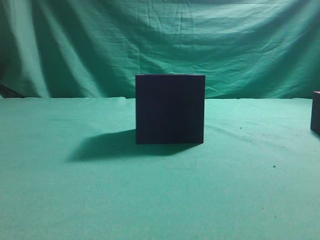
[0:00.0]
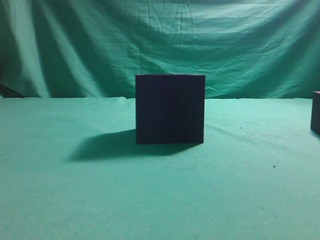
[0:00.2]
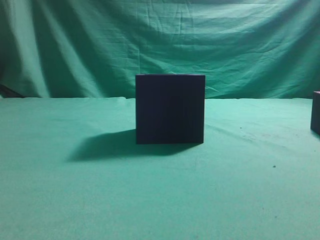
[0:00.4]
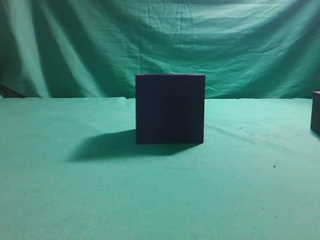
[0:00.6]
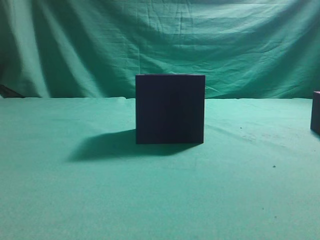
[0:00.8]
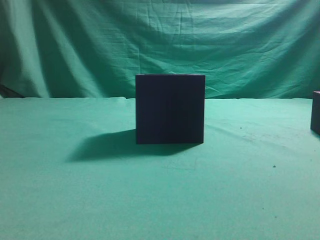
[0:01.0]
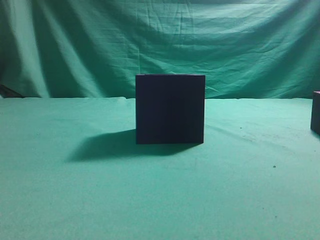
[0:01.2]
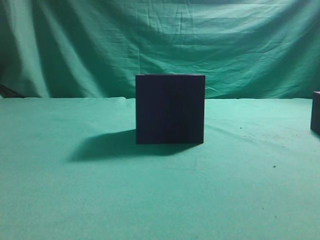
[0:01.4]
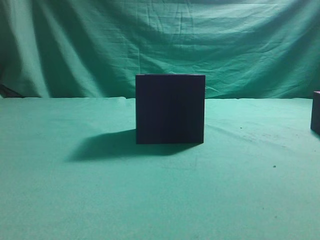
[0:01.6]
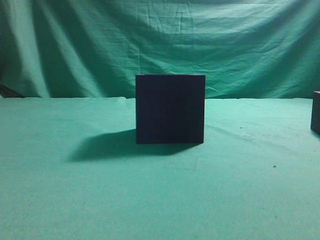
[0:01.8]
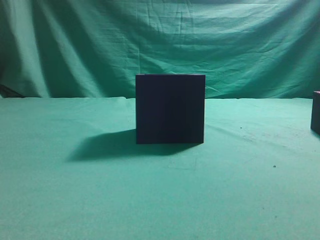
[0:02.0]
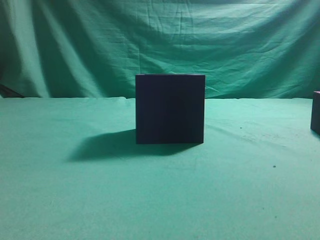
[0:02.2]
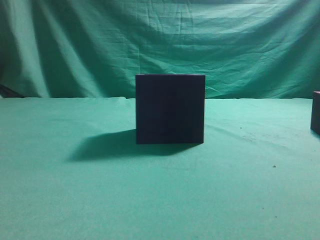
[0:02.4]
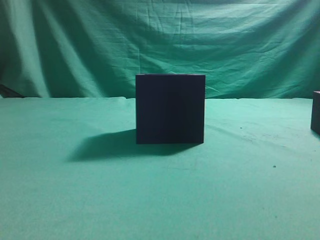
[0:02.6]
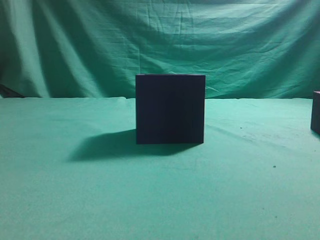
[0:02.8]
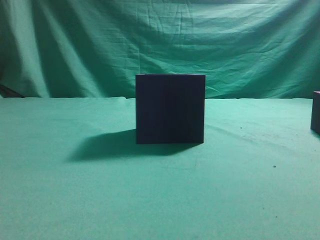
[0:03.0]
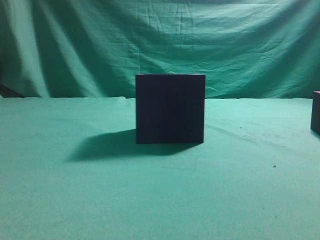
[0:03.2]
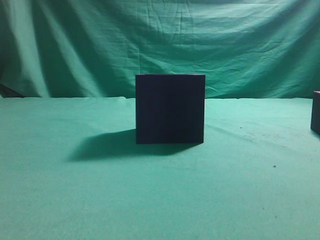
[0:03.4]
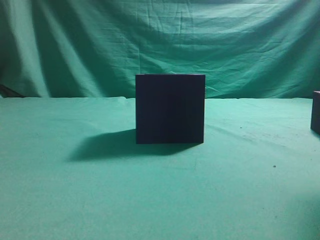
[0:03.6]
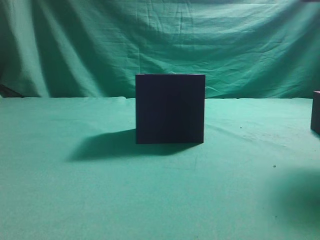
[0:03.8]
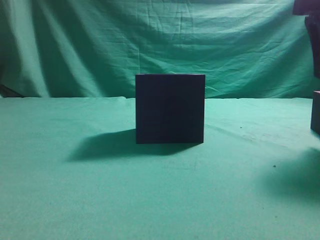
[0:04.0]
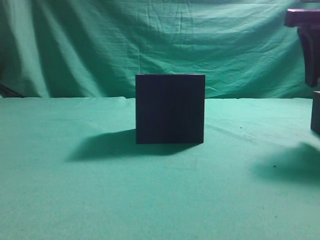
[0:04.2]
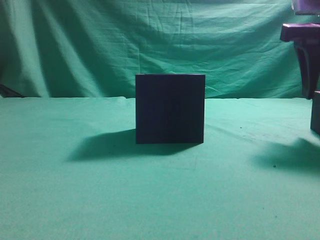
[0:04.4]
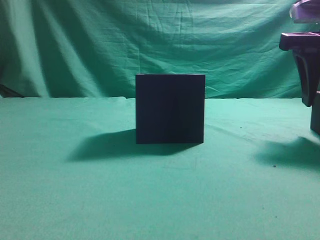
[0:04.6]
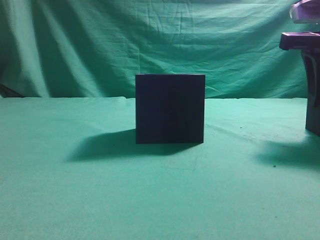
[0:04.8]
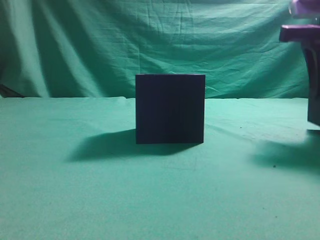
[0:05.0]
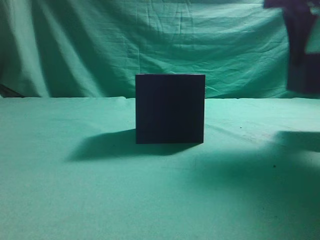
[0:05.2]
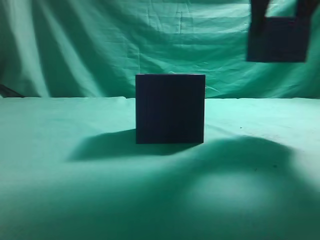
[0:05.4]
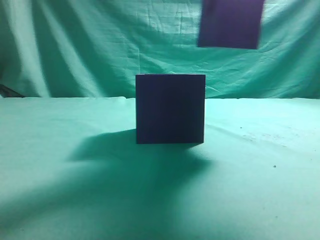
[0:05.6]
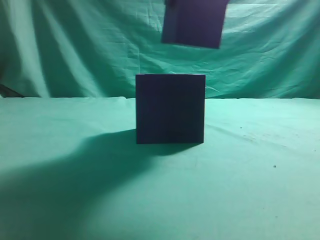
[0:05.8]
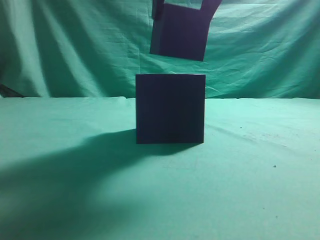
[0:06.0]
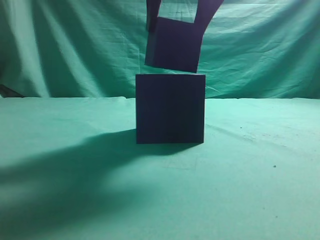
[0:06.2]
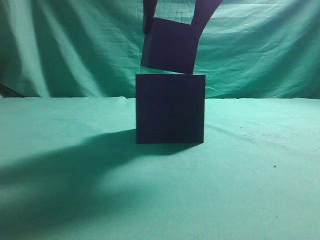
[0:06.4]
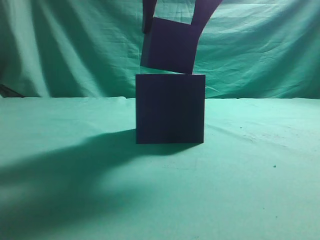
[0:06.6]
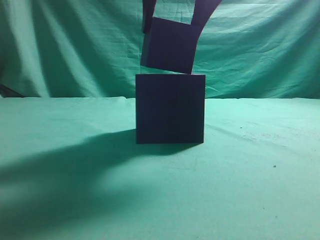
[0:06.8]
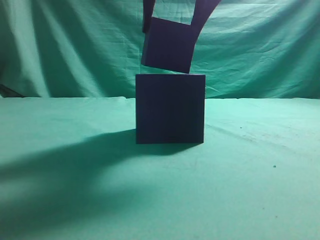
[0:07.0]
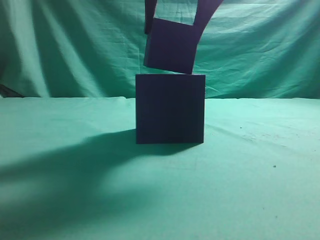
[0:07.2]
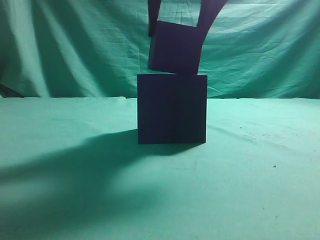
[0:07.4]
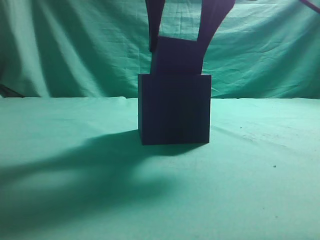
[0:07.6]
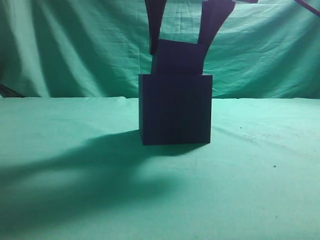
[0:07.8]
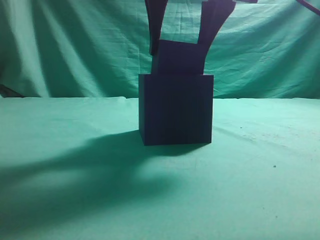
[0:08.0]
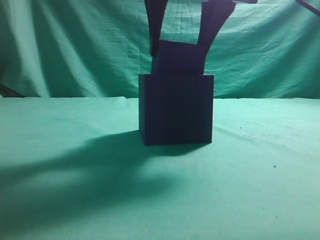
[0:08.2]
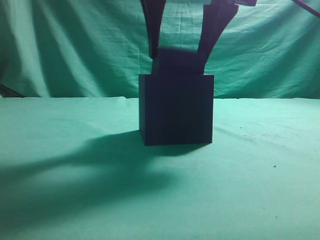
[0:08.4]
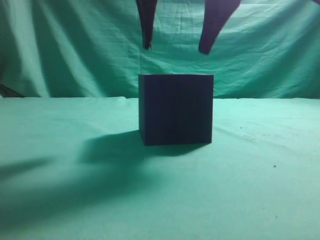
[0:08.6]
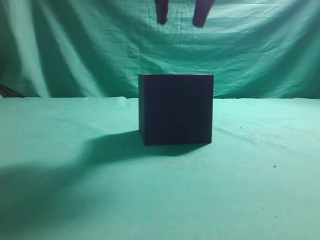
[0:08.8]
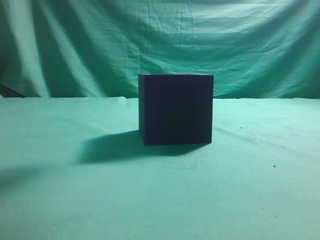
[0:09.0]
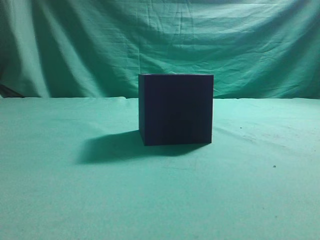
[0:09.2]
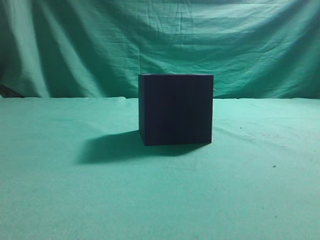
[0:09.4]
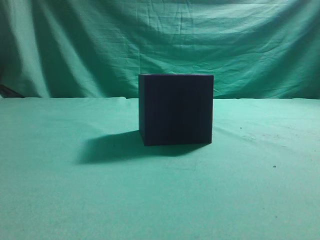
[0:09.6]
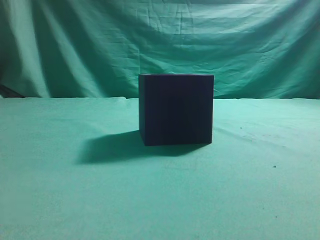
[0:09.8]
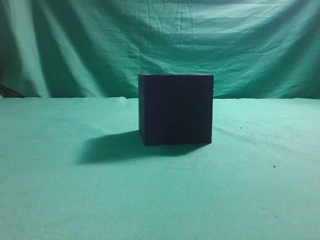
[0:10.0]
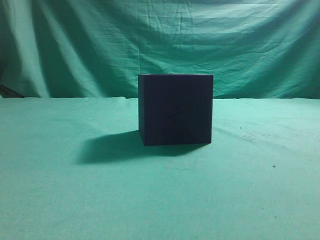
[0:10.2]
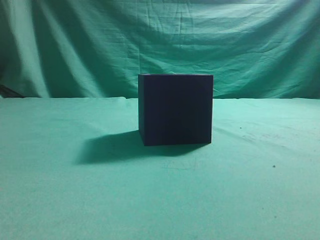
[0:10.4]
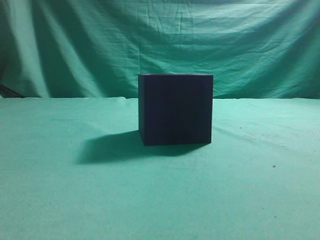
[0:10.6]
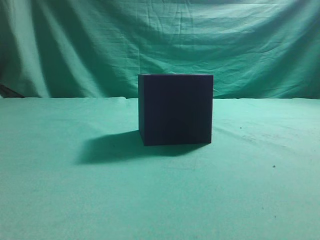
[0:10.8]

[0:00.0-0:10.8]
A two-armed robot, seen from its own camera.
Task of the whole recording: pick up the cube block and place it into the cube groove.
Step, 0:00.0 to 0:05.0: Grasp the cube.
Step, 0:05.2 to 0:08.4: Place cube into the cube-shaped recess.
0:03.0 to 0:04.6: The right gripper travels forward and downward by roughly 20 cm, and opens its fingers.
0:04.6 to 0:06.2: The right gripper goes roughly 20 cm to the left and upward.
0:06.2 to 0:07.8: There are only small adjustments of the grippers.
0:07.8 to 0:09.2: The right gripper heads upward, covering about 10 cm, and closes up.
